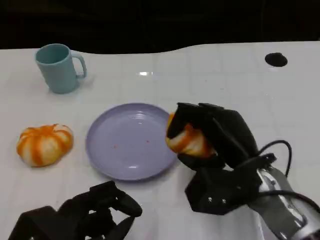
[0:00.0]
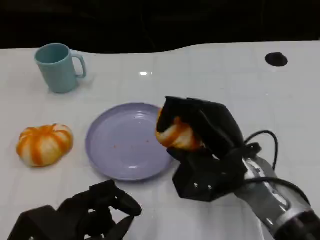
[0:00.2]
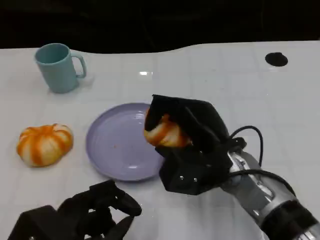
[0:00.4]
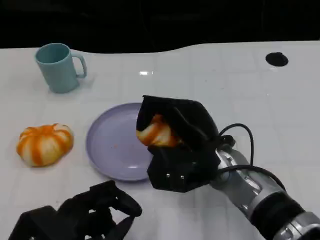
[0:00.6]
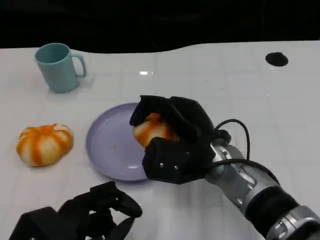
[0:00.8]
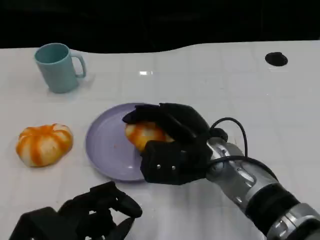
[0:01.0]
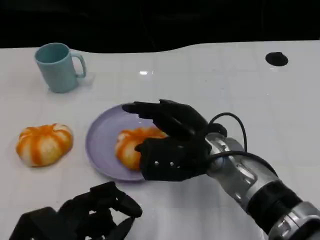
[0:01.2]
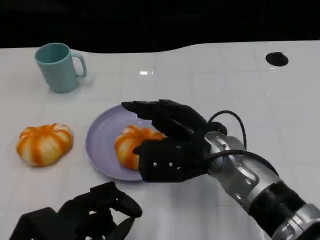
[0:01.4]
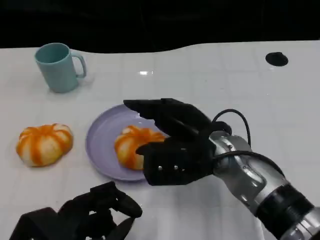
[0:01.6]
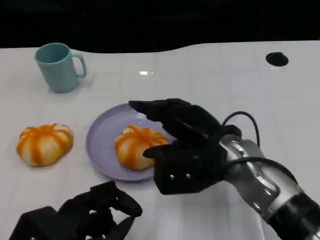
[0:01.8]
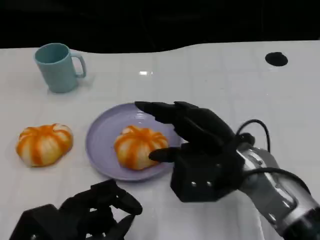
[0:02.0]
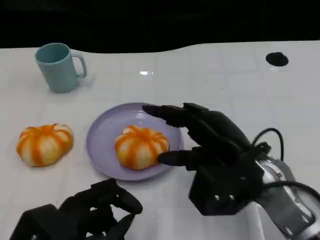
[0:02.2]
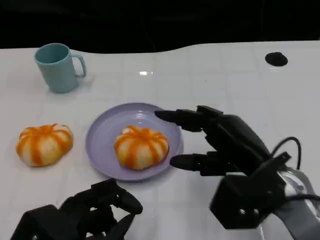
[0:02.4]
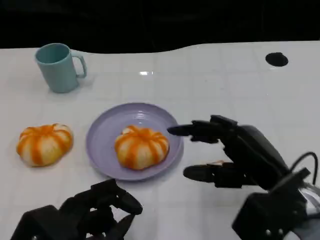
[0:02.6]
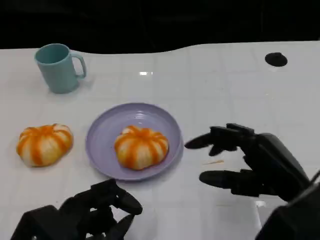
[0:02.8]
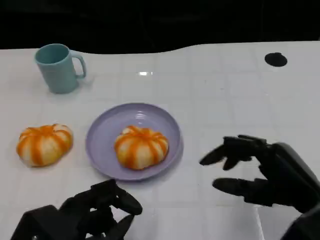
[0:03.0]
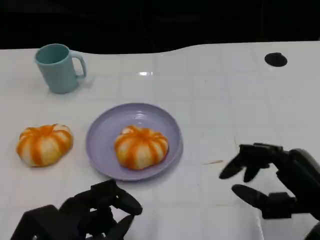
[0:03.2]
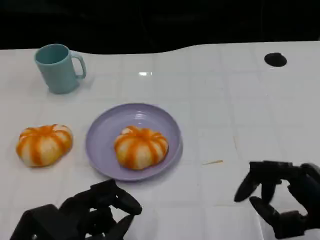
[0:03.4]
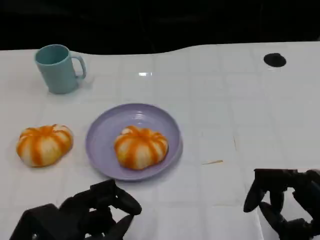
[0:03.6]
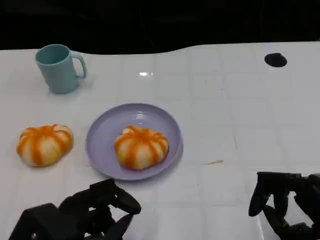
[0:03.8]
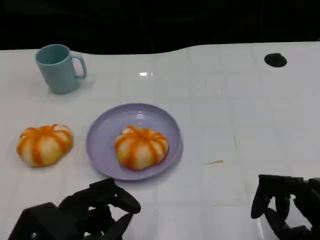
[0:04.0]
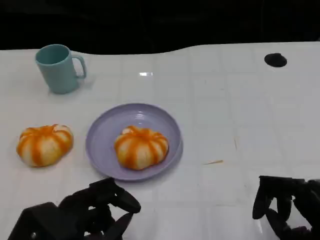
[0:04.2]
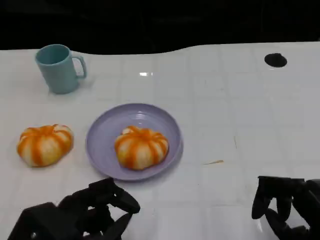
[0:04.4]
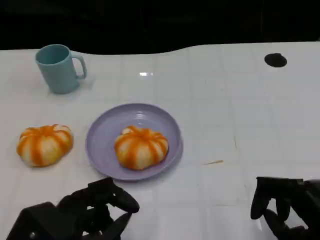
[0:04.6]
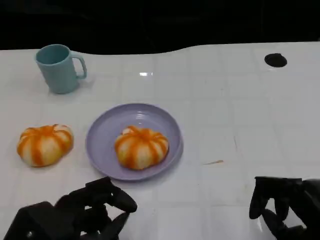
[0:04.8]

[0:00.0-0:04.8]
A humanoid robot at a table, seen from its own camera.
Task of the whole recording: Grasp the bread from the table and place it into the plate.
0:00.0 to 0:01.6: The right hand ends up about 5 cm from where it was.
0:01.6 to 0:03.2: The right hand travels to the right and backward by some 20 cm.
0:03.2 to 0:04.8: The hands stay close to where they were, moving slightly.

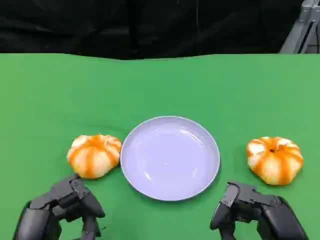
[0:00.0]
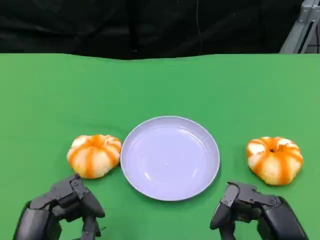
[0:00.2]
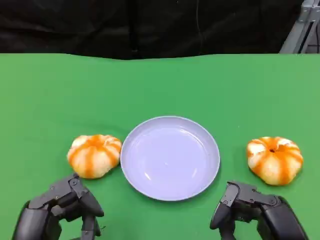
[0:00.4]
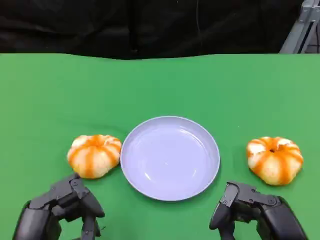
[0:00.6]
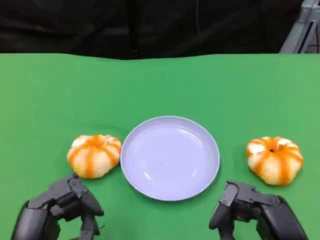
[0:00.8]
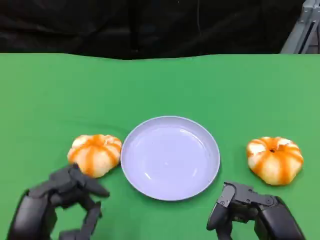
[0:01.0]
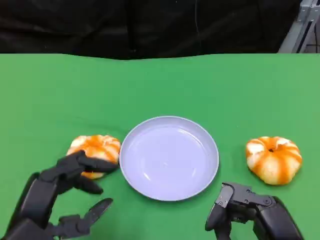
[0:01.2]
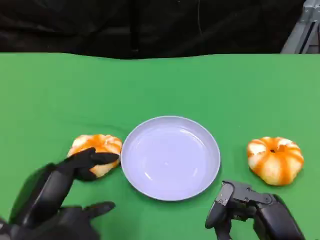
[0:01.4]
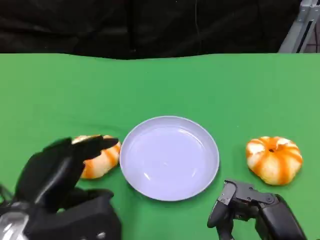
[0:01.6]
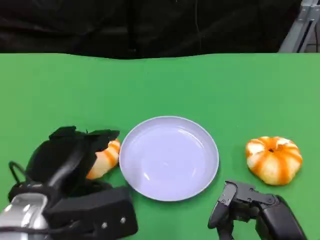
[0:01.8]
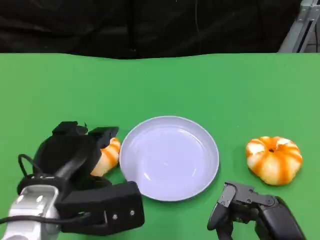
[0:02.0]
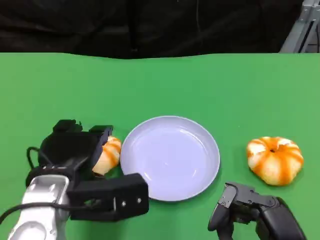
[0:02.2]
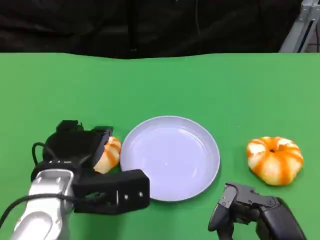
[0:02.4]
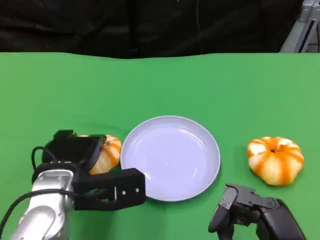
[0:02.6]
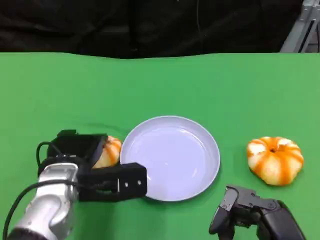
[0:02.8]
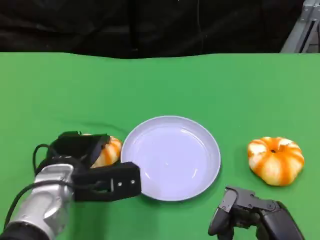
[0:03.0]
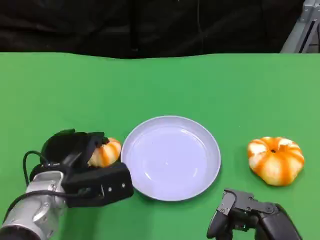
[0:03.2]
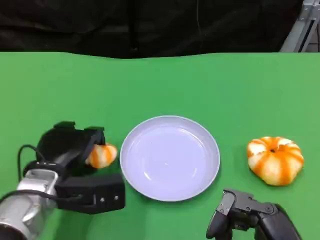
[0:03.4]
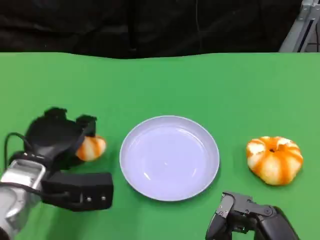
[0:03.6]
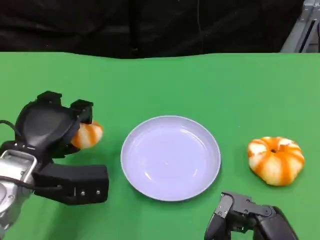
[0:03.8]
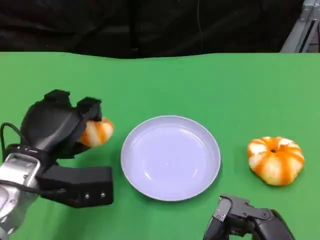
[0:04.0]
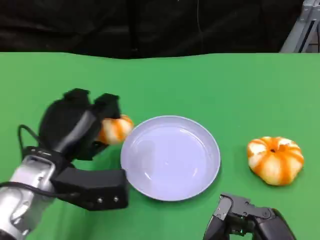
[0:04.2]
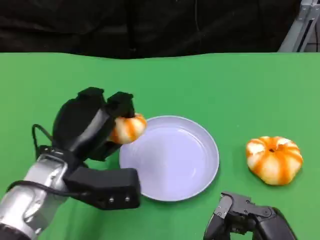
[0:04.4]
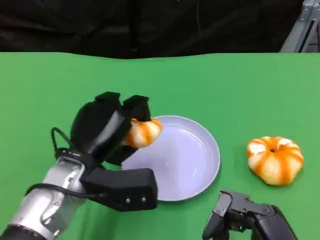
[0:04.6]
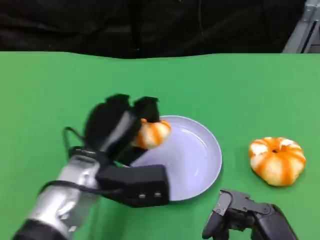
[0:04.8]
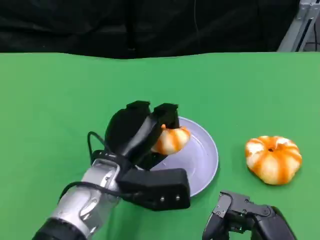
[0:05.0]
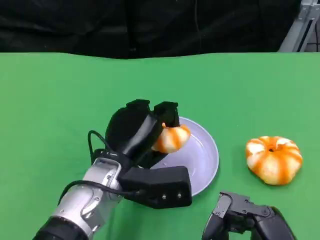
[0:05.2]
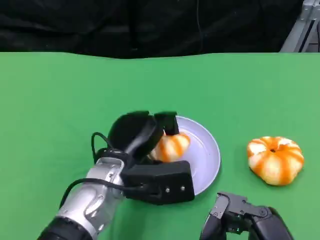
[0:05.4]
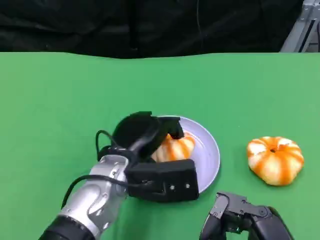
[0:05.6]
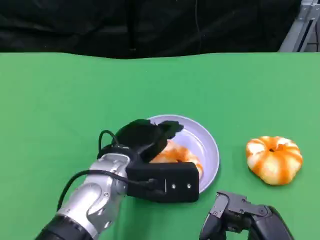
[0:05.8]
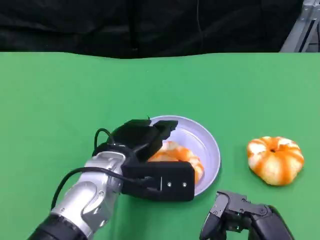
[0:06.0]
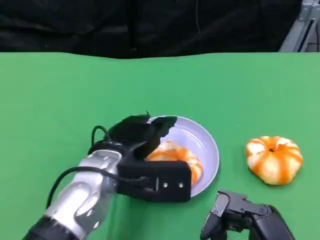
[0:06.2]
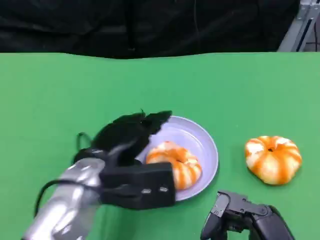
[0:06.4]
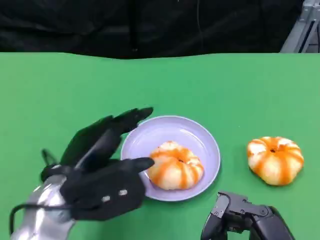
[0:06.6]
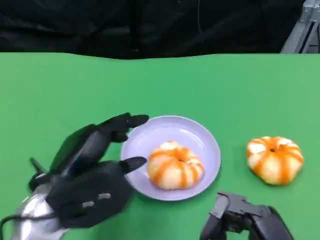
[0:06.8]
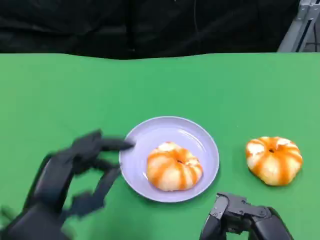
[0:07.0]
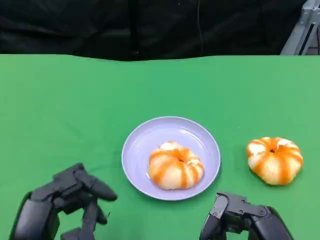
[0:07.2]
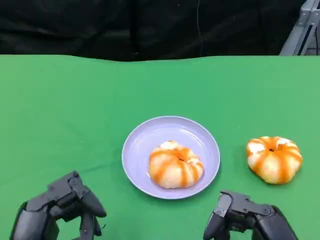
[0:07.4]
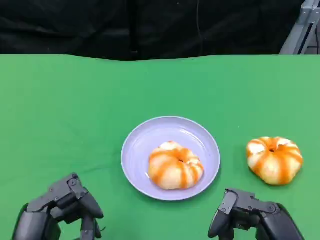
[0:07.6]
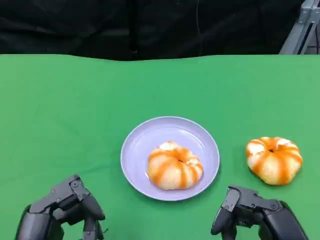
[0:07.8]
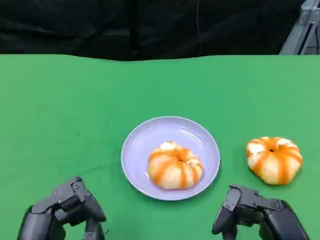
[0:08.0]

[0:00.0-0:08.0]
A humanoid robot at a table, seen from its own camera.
Task of the whole recording: Grasp the bread from the table and place it into the plate.
0:00.0 to 0:01.6: The left hand is displaced forward by roughly 5 cm.
0:01.6 to 0:03.2: The left hand shifts approximately 10 cm forward and downward.
0:03.2 to 0:04.8: The left hand goes roughly 5 cm to the right.
0:06.4 to 0:08.0: The left hand travels backward and to the left by about 15 cm.

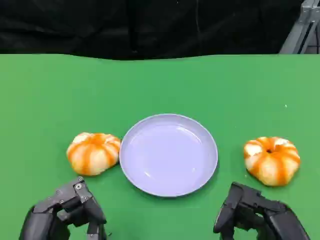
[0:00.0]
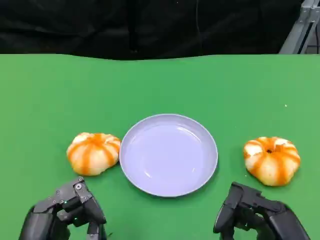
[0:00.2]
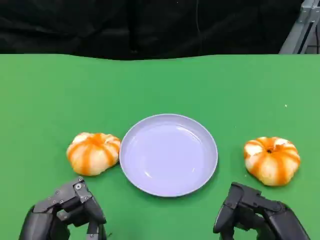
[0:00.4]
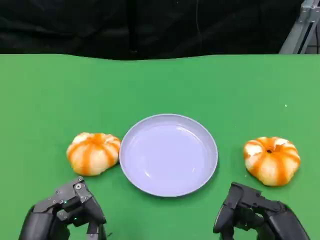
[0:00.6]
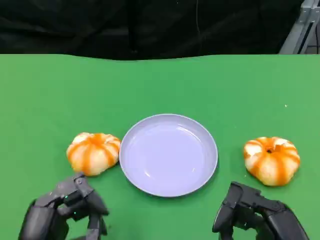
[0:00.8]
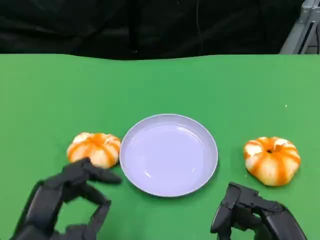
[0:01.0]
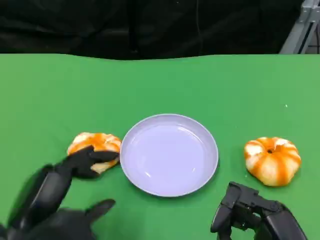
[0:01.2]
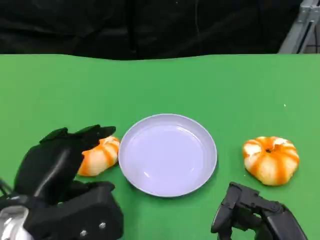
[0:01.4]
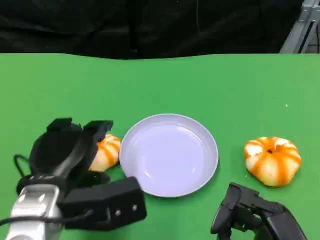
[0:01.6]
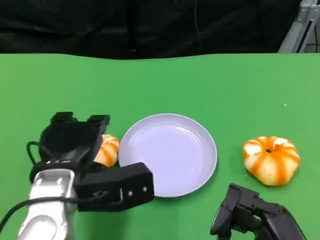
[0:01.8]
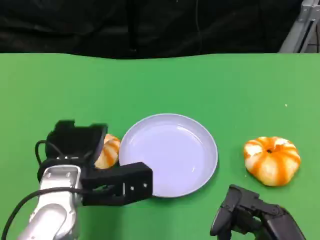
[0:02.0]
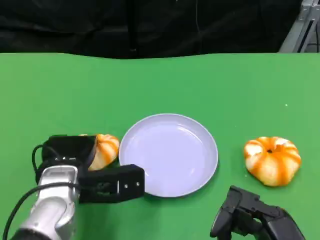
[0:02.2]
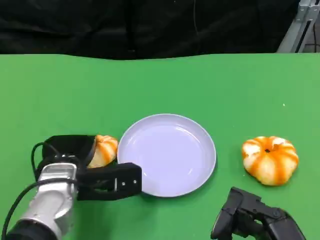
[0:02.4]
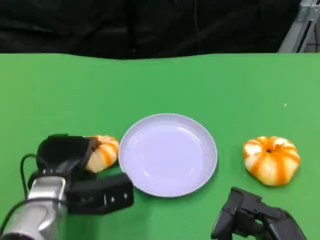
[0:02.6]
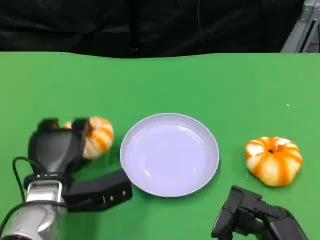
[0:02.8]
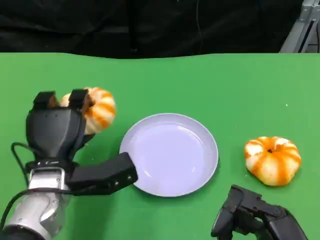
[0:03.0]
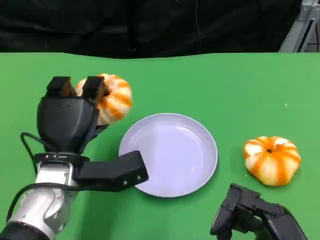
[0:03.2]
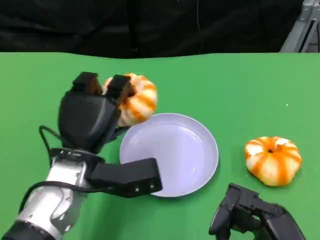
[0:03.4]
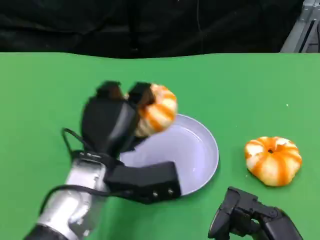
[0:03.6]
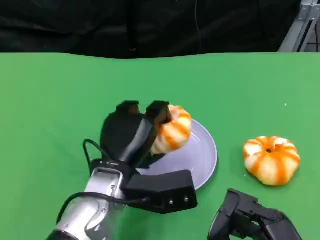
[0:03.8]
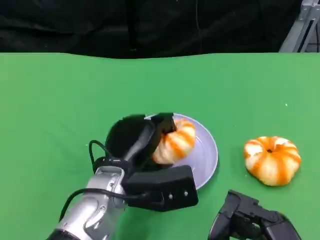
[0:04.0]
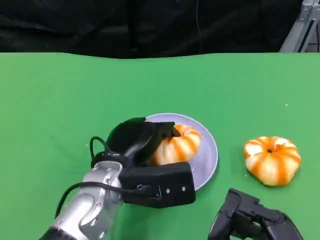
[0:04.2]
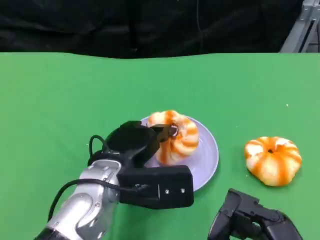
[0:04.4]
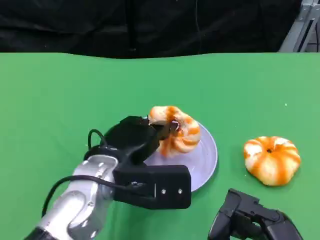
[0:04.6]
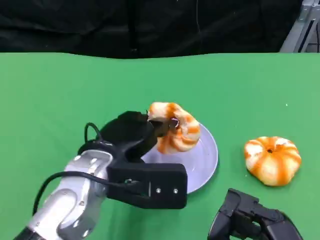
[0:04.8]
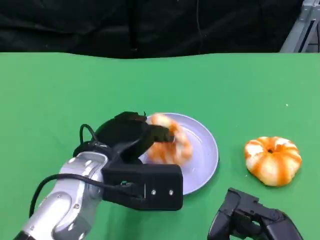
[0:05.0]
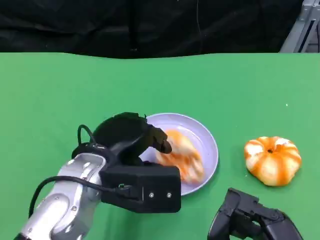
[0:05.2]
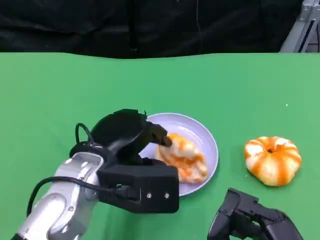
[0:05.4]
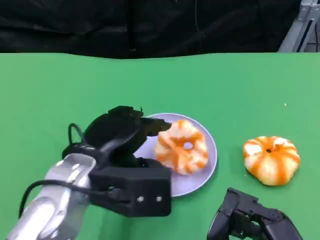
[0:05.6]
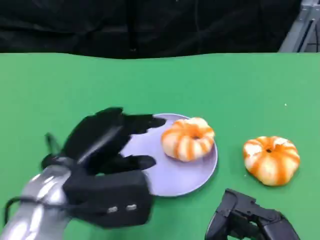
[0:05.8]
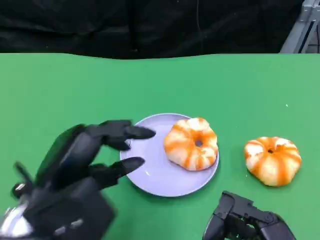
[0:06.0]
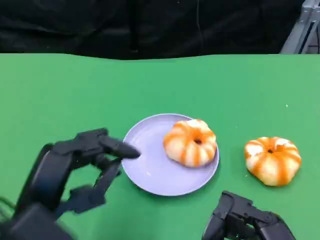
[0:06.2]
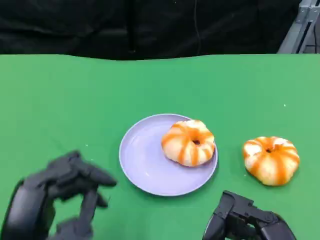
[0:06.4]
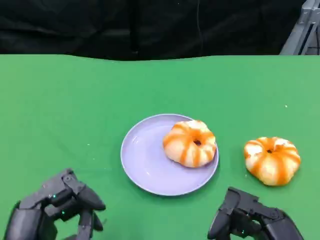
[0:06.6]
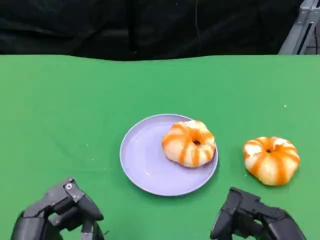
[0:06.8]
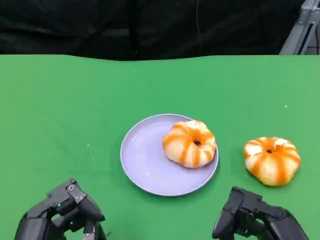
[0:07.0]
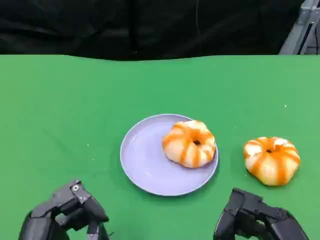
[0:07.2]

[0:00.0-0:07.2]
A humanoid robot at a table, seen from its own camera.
Task of the whole recording: Grasp the bread from the table and place it into the plate.
0:00.0 to 0:01.4: The left hand heads forward, covering roughly 10 cm.
0:01.4 to 0:02.8: The left hand shifts roughly 10 cm downward and forward.
0:02.8 to 0:04.4: The left hand is displaced to the right and upward by approximately 10 cm.
0:04.4 to 0:05.8: The left hand travels to the left by approximately 5 cm.
0:05.8 to 0:07.2: The left hand goes roughly 15 cm backward and downward.
